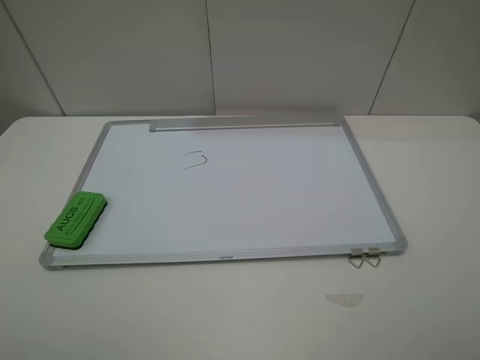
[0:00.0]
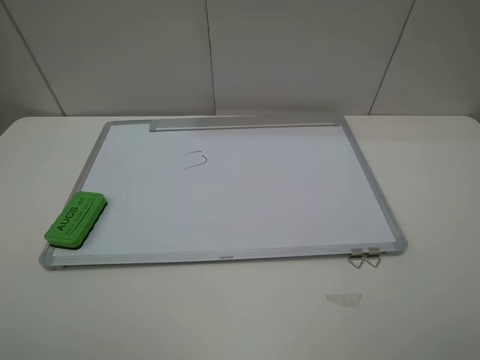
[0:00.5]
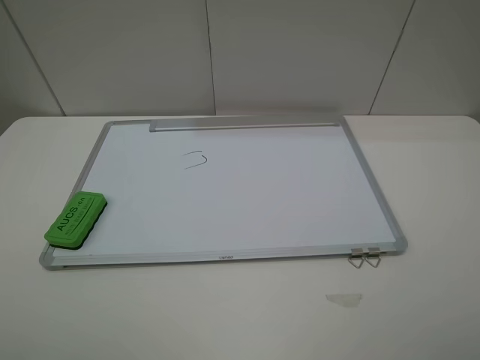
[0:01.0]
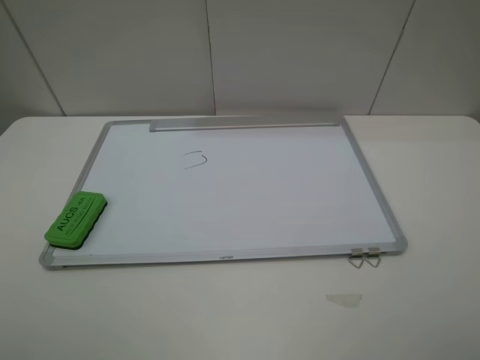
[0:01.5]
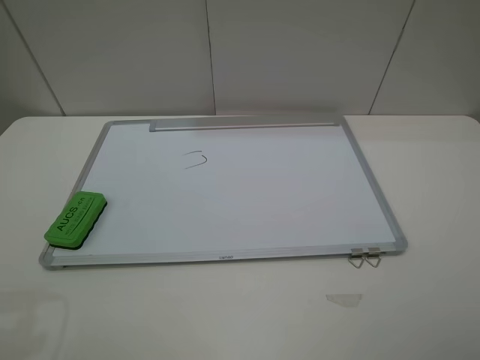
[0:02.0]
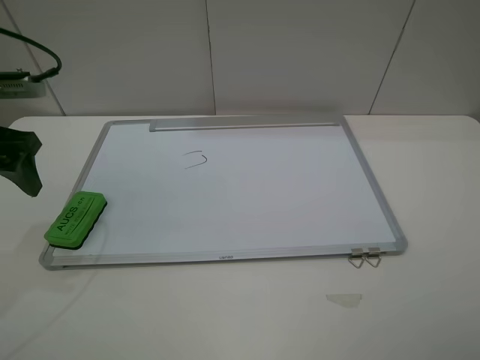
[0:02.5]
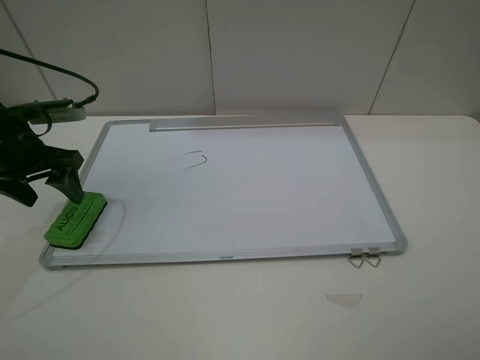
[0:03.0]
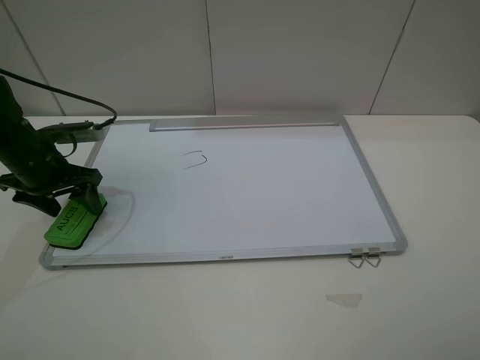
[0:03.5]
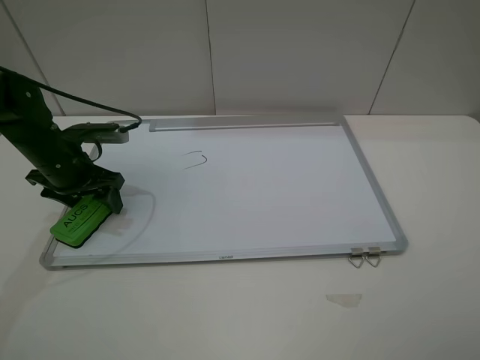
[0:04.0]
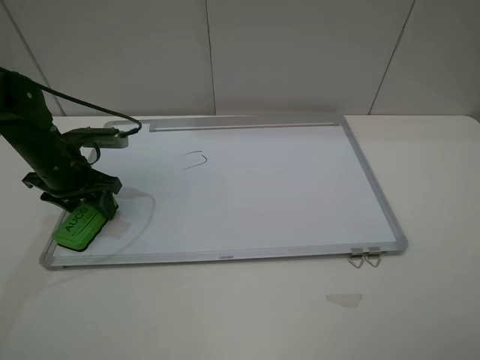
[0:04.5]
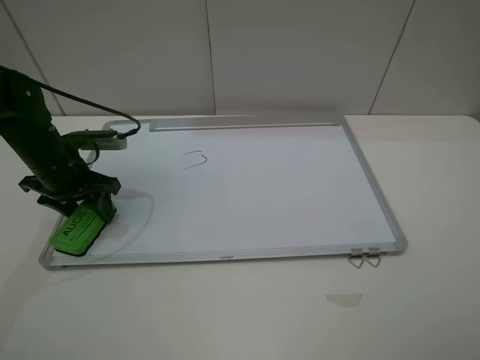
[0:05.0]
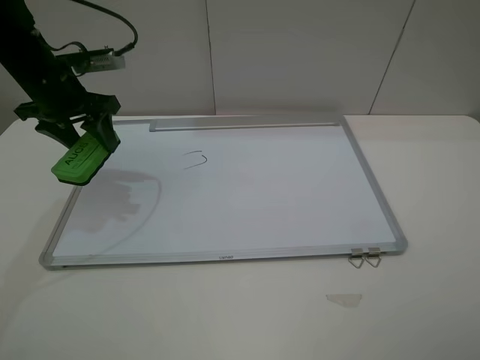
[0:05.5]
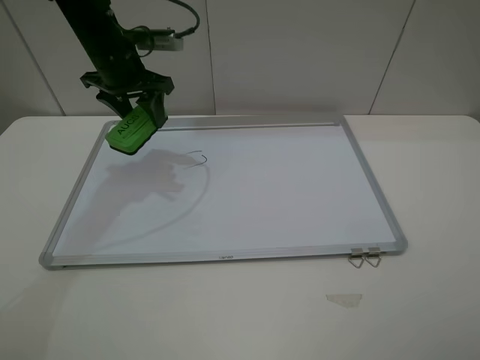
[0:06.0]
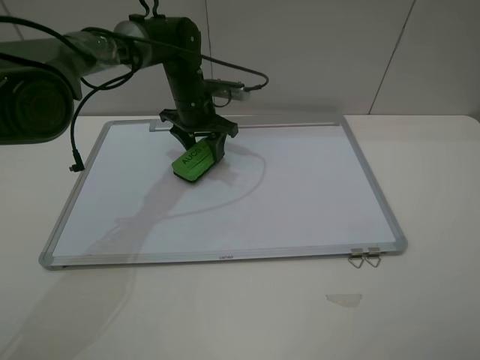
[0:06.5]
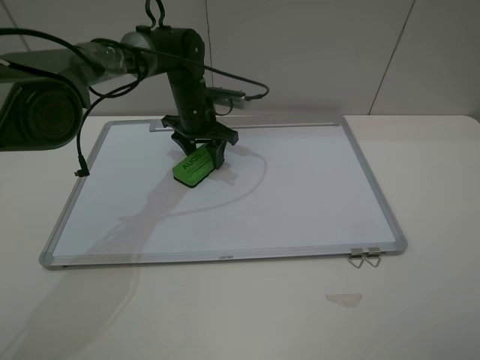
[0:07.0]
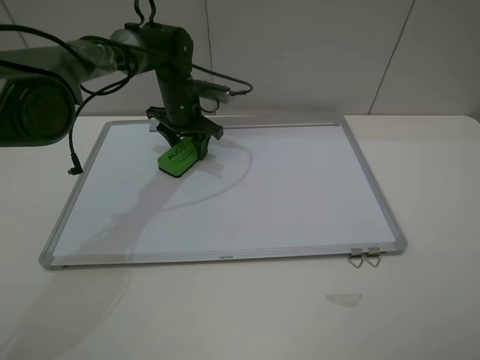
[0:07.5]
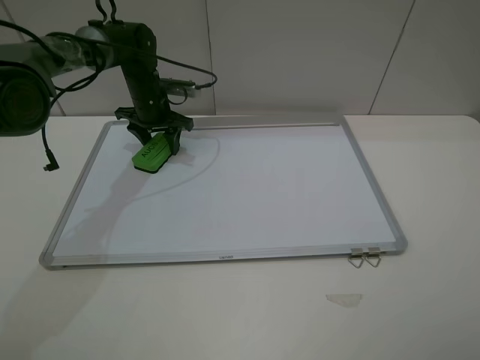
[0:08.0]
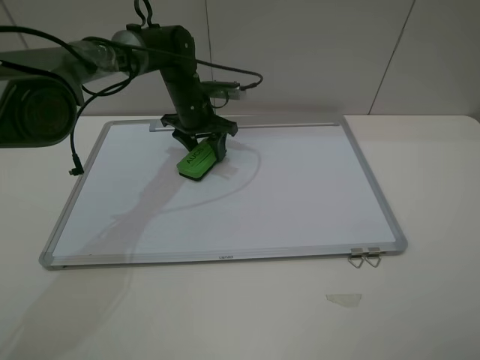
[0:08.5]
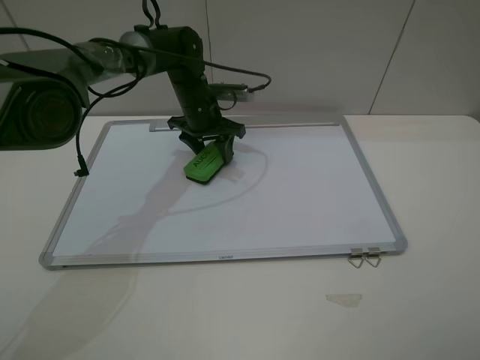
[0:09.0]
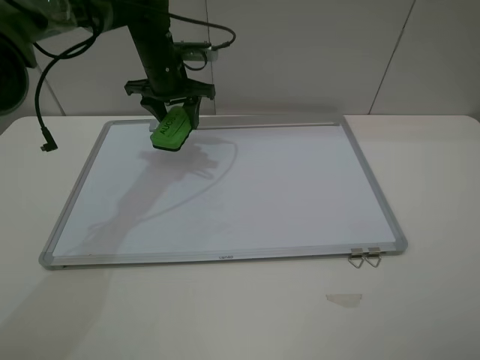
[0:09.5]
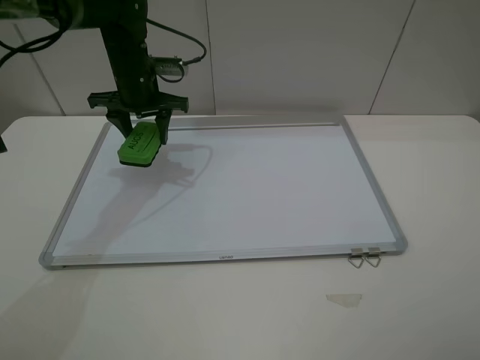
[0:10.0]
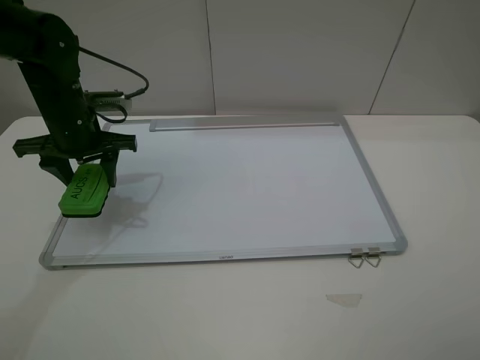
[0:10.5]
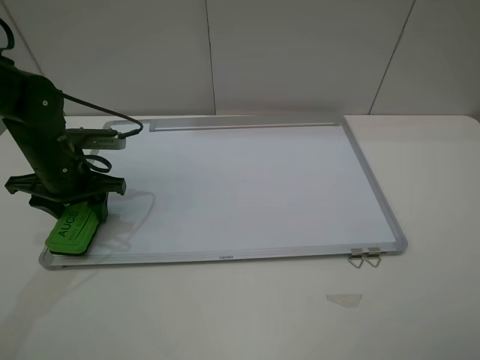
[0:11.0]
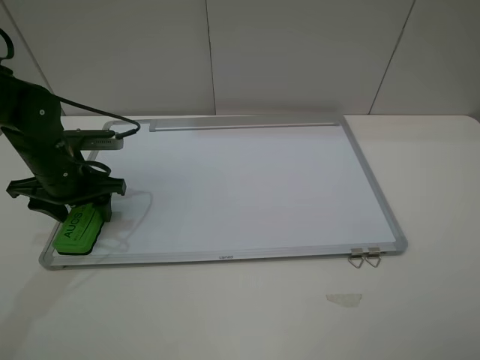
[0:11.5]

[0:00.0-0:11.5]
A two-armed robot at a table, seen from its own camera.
Step, 0:00.0 to 0:04.5: Grasp the eraser with the left gripper.
Step, 0:05.0 to 0:08.5: Grasp the eraser and wipe the blackboard with the left gripper.
0:02.0 to 0:04.0: The left gripper goes roughly 25 cm downward and forward.
0:04.0 to 0:06.0: The left gripper goes some 20 cm forward, upward and to the right, and closes.
0:06.0 to 0:07.5: The left gripper goes some 10 cm downward and to the right.
0:07.5 to 0:09.5: The left gripper swings left and right, roughly 10 cm each way, with 2 reversals.
0:09.5 to 0:11.5: The left gripper goes approximately 20 cm backward and to the left, and opens up.

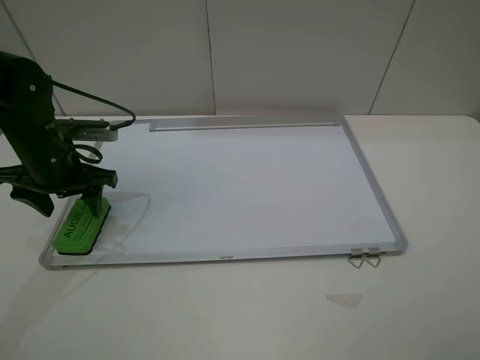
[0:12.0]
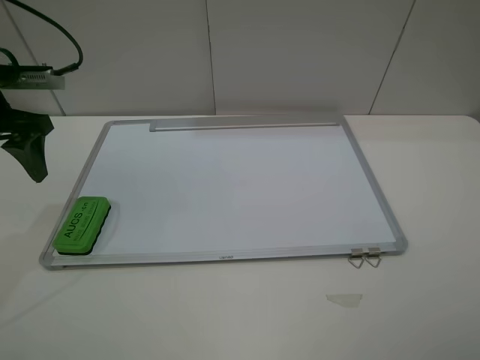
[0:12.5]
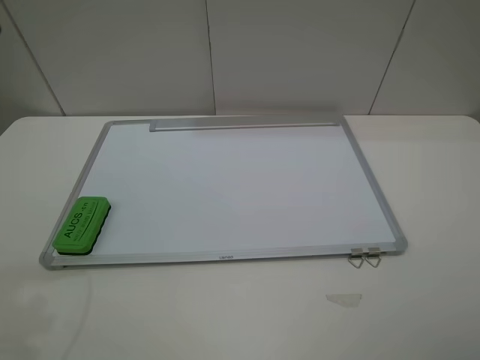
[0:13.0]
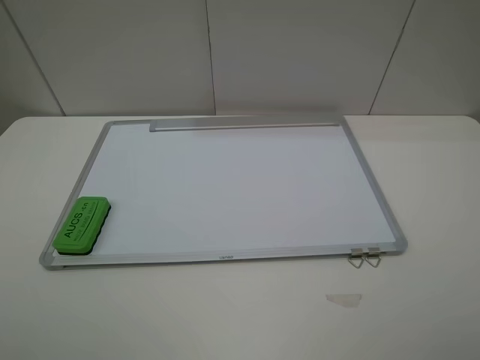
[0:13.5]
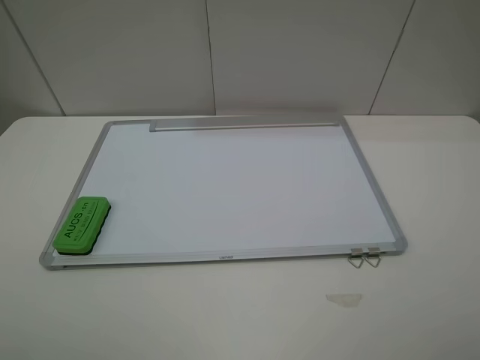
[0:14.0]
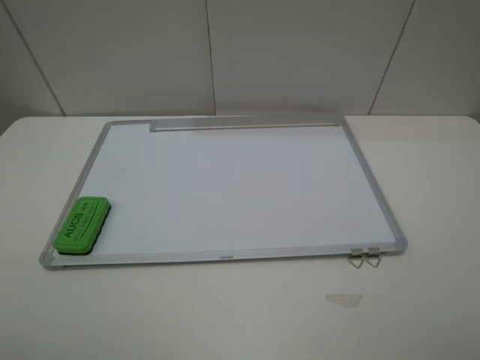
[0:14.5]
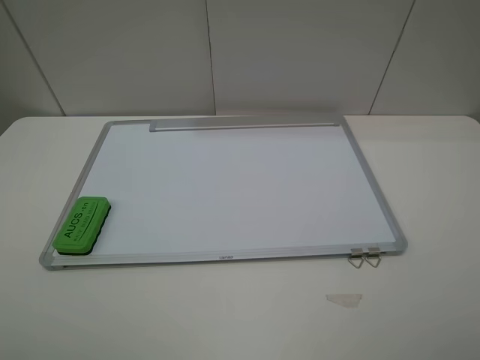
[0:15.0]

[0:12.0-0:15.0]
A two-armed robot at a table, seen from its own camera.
0:12.0 to 0:13.5: The left gripper travels backward and upward by approximately 30 cm.
